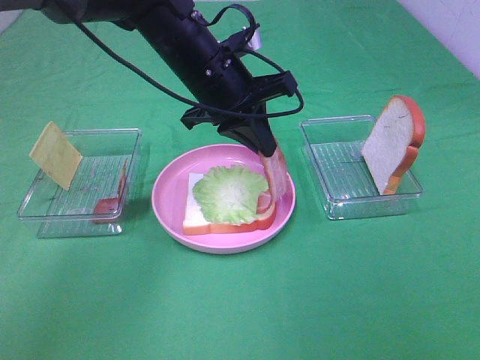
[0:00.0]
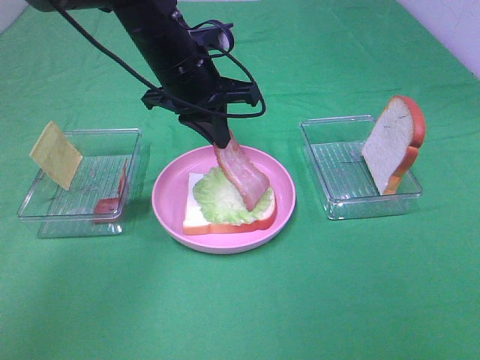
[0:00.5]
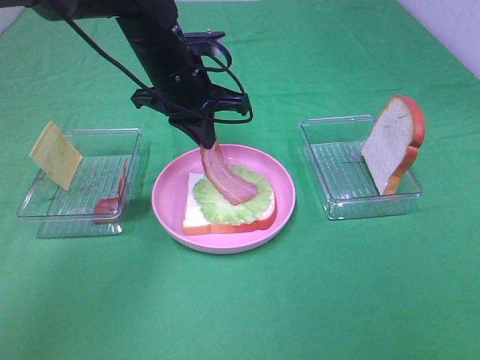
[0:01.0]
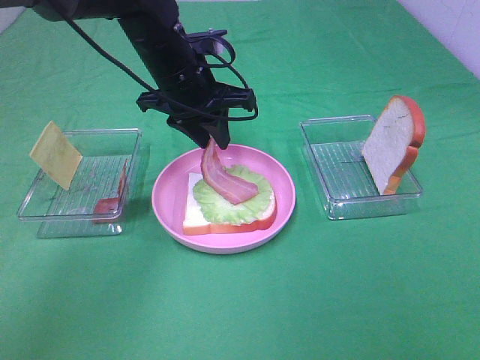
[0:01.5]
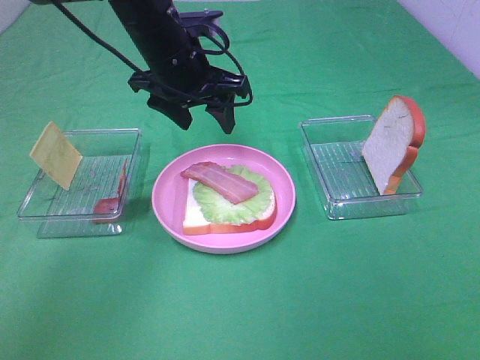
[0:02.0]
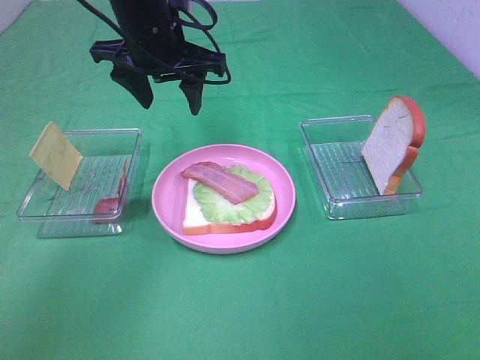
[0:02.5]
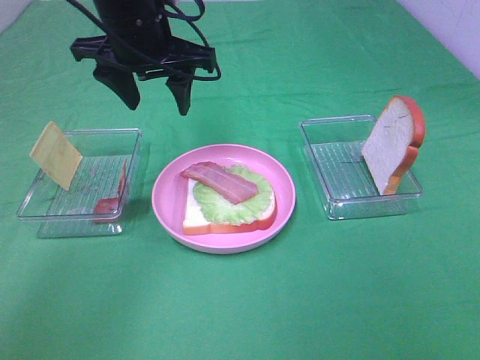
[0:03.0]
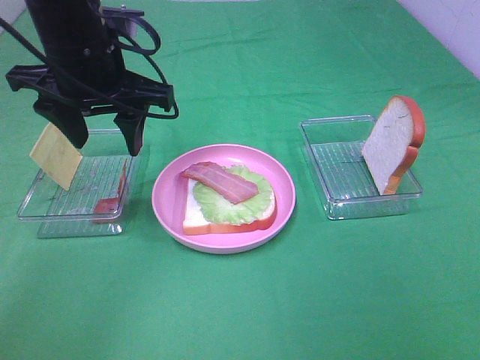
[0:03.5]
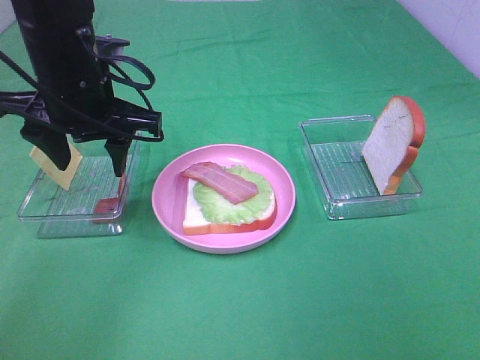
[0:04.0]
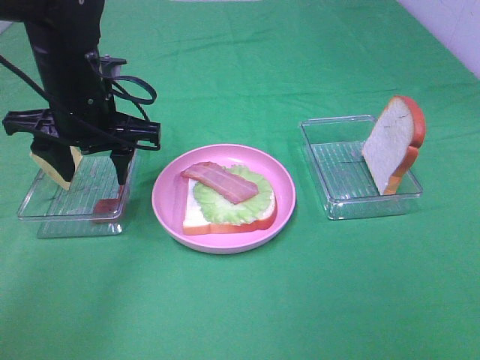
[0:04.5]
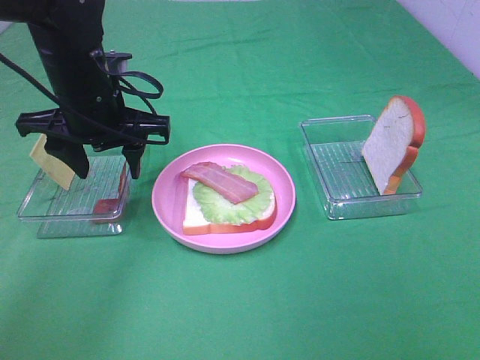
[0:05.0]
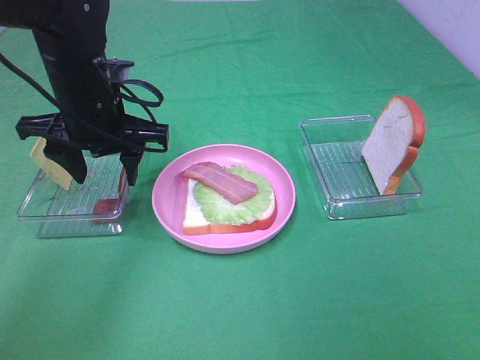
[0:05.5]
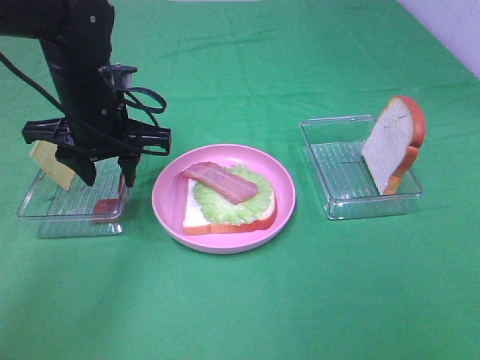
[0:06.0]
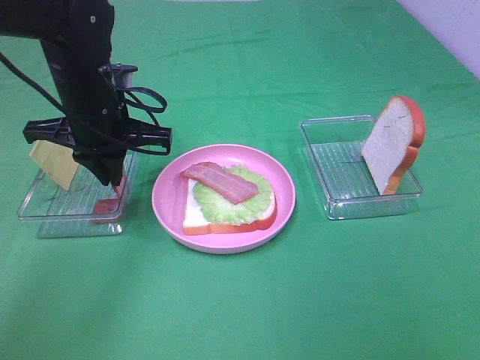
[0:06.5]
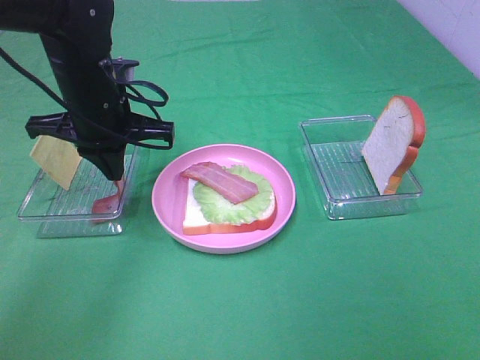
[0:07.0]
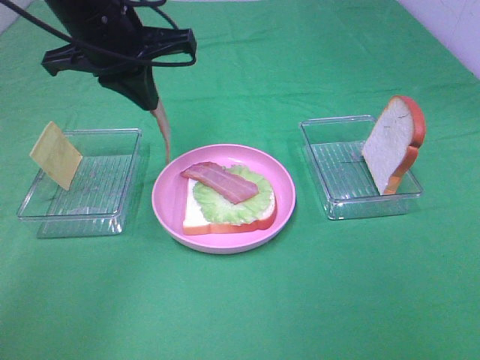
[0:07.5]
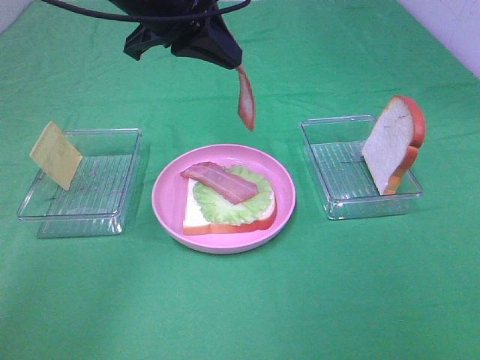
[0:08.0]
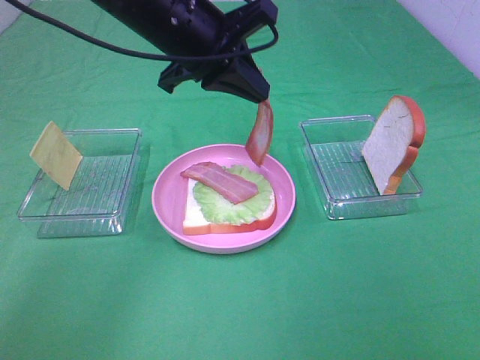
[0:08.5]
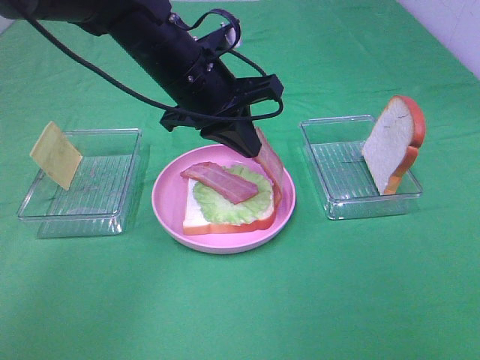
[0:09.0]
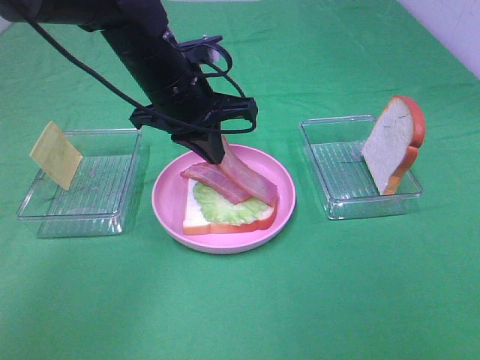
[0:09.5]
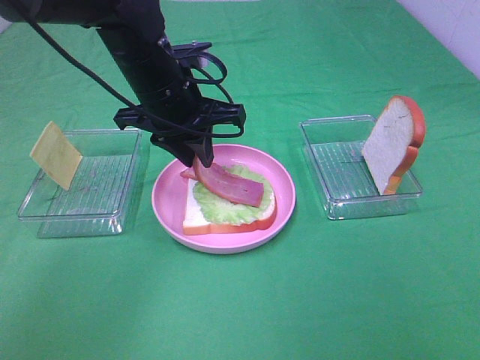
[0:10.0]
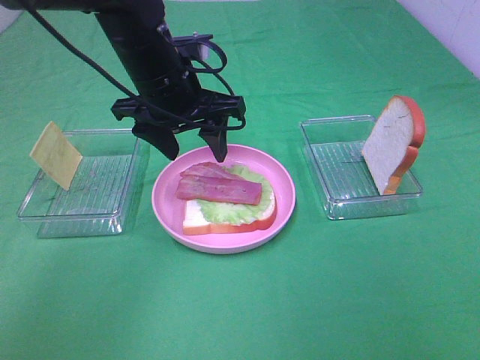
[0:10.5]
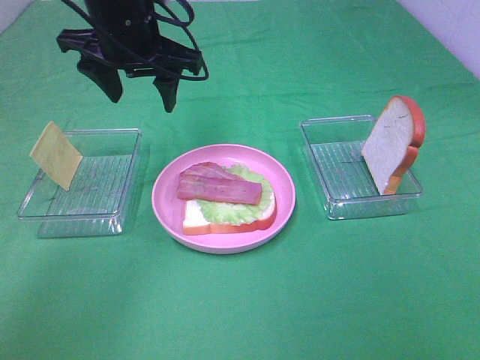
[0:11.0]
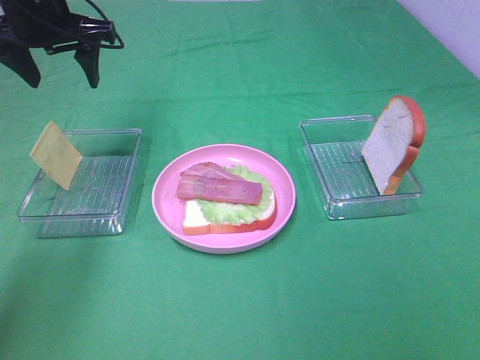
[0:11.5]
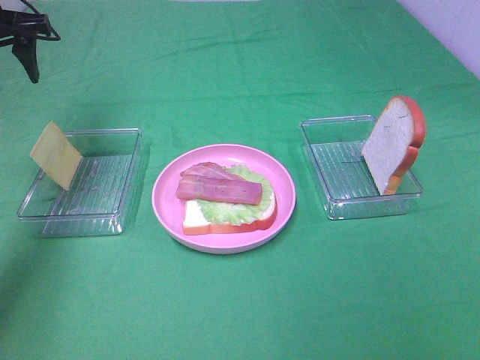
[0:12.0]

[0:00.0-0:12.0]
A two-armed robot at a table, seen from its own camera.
Task of the whole recording: Make sandwiches.
Step, 0:02.0 to 0:07.0: Left hand:grab the bacon.
Step, 0:07.5 to 0:10.0: Left hand:place bacon on bacon.
0:00.0 to 0:02.0: The left gripper opens up.
0:02.0 to 0:04.0: The left gripper goes roughly 10 cm backward and to the left.
0:04.0 to 0:06.0: The left gripper moves about 5 cm.
0:06.0 to 0:08.0: The left gripper goes some 15 cm upward and to the right, and closes.
0:08.0 to 0:10.0: The left gripper heads downward, covering about 10 cm, and opens.
0:10.0 to 0:12.0: The left gripper goes some 25 cm to the left, and opens its fingers.

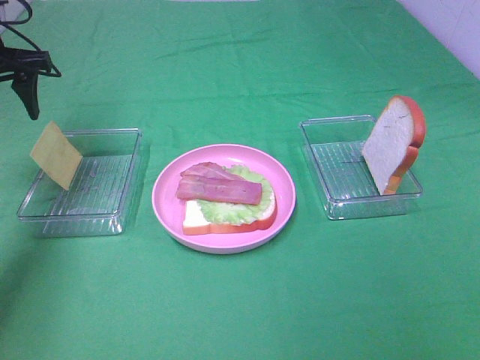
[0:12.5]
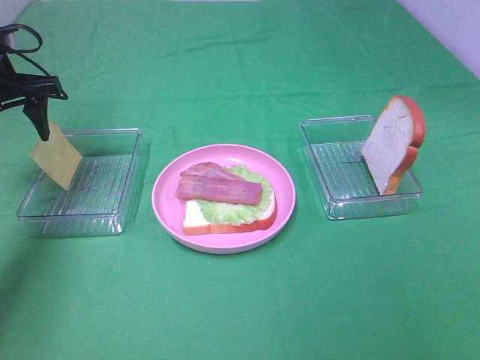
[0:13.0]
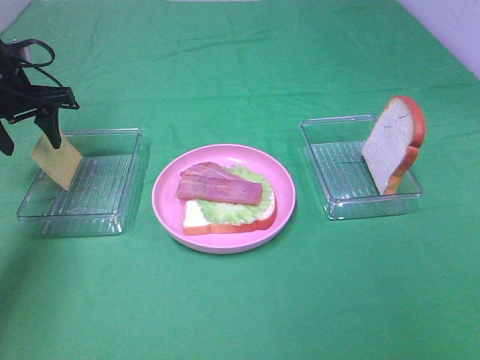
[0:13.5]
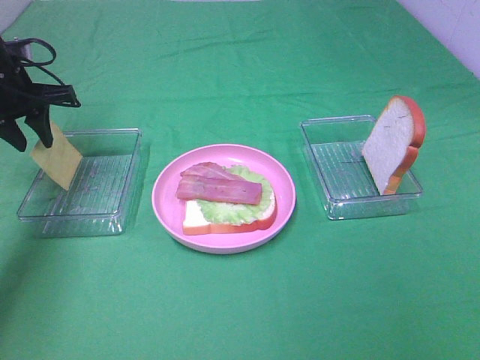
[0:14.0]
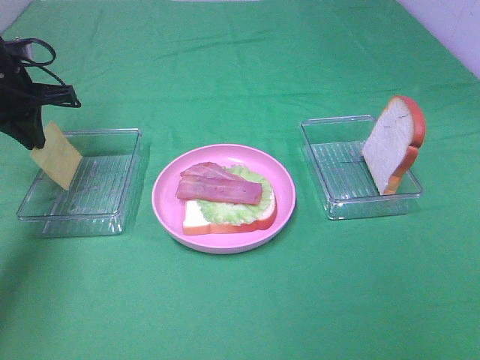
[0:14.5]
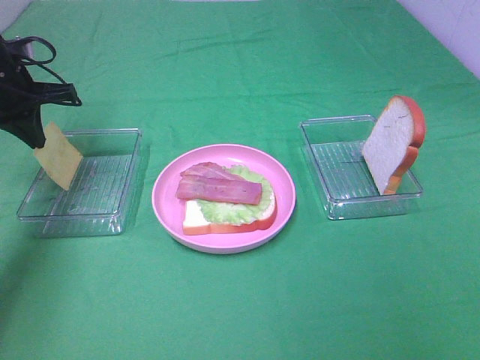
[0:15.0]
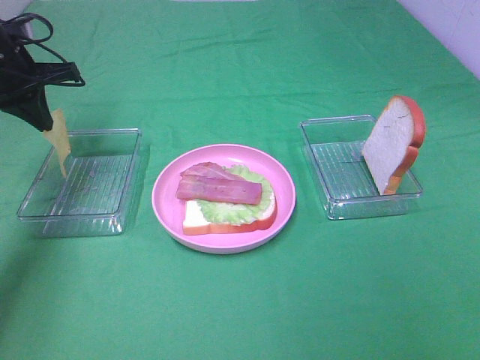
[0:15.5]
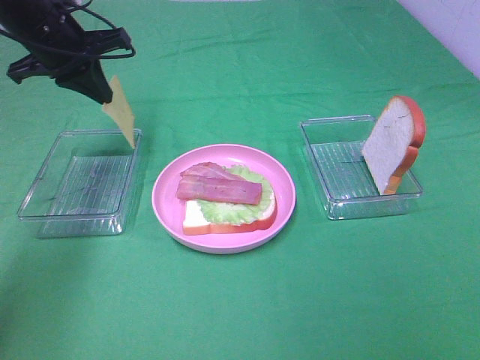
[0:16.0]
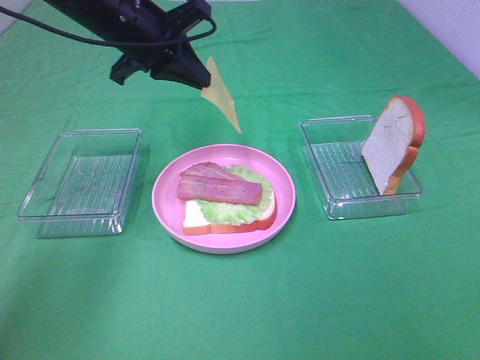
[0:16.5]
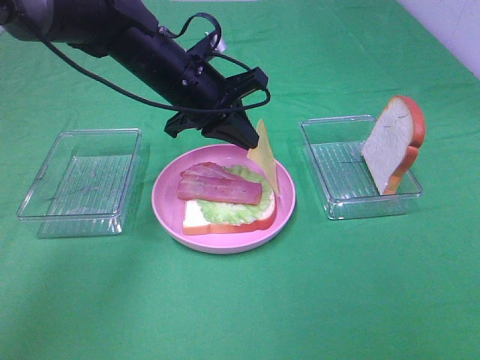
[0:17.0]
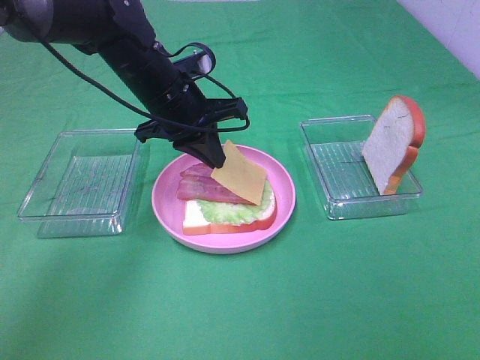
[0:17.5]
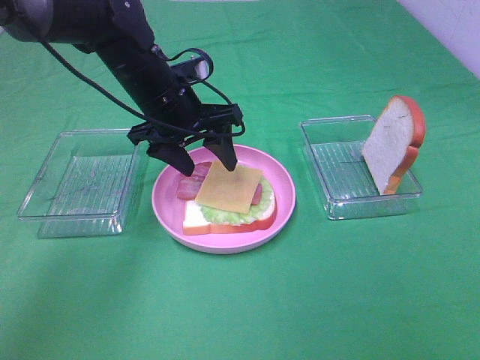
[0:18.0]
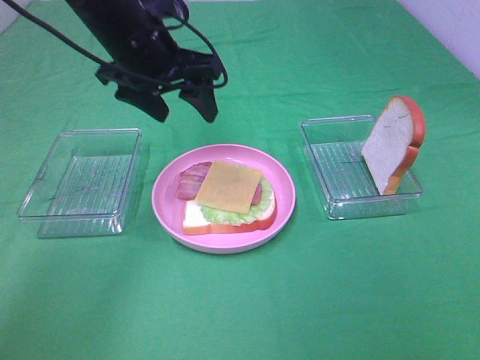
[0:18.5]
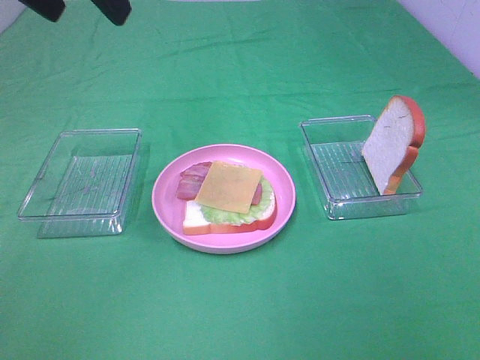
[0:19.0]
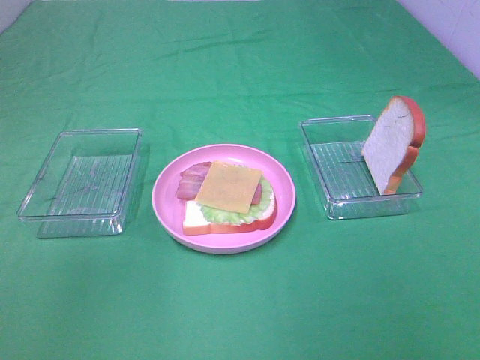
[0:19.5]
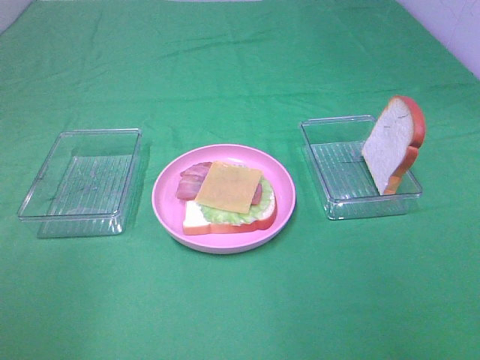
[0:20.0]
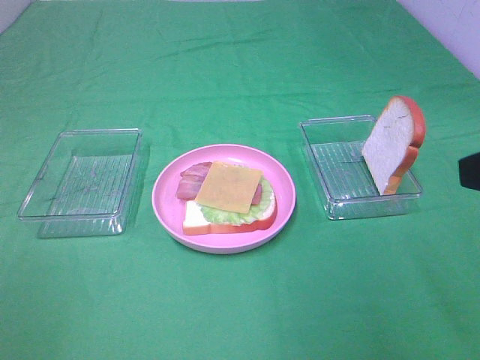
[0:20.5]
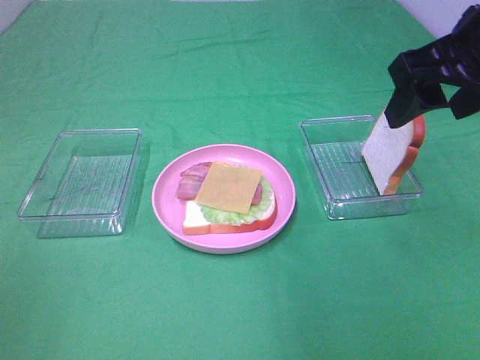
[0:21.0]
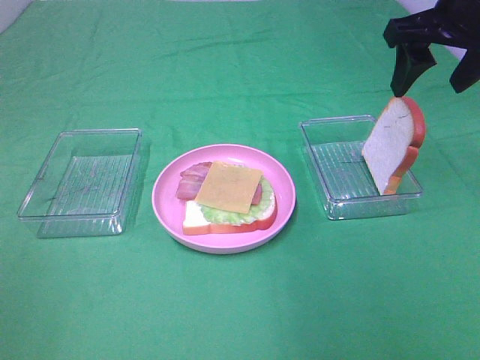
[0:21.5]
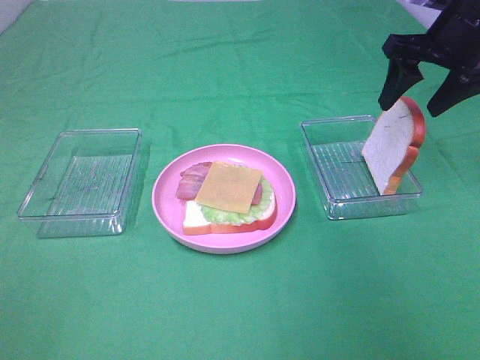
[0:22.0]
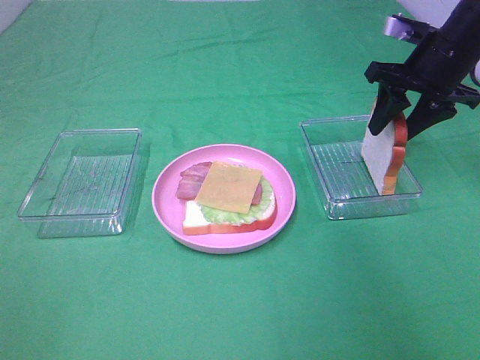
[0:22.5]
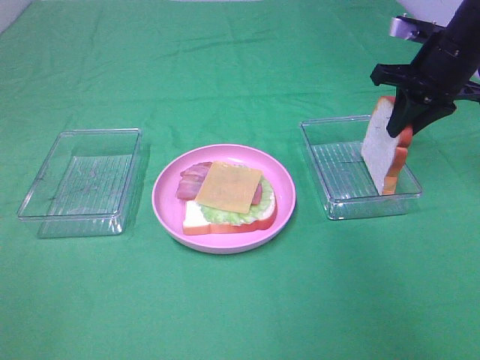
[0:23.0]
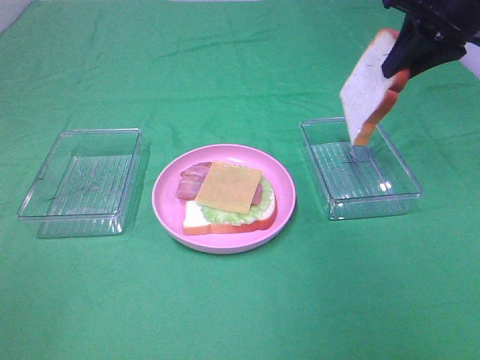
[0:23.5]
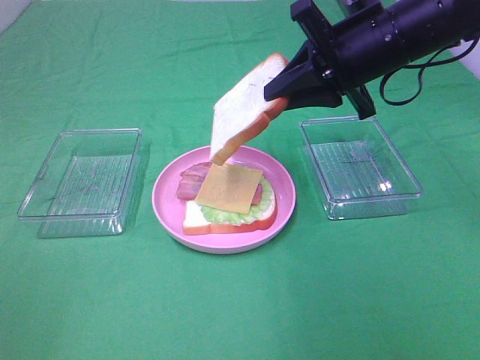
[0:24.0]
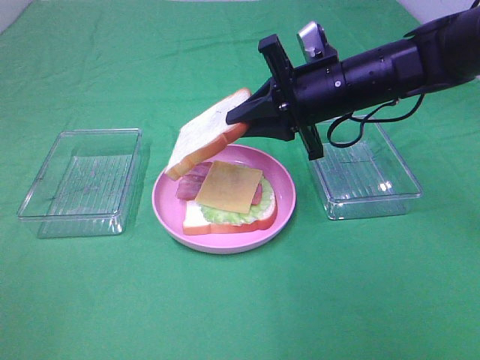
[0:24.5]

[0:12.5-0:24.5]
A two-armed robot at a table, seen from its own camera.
Task of the whole recording: Make sandwiches.
Step, 0:12.5 to 0:15.0: Left hand:grab the cheese slice.
Step, 0:15.5 to 0:18.0: Left hand:place the cheese slice on top of the bacon.
Step, 0:18.5 to 0:22.5: Right hand:grab the bread slice.
0:12.5 to 0:14.5: The left gripper travels downward by some 5 cm, and closes up.
0:14.5 to 0:16.5: The left gripper shifts roughly 20 cm to the right.
0:16.5 to 0:18.5: The left gripper moves roughly 5 cm downward and comes back, and opens.
0:18.5 to 0:20.5: The left gripper moves backward and to the left, about 40 cm. Meanwhile the right gripper moves forward, about 15 cm.
0:20.5 to 0:22.5: The right gripper is displaced forward by about 30 cm, and closes its fingers.
0:22.5 to 0:24.5: The right gripper moves to the left, roughly 15 cm, and closes.

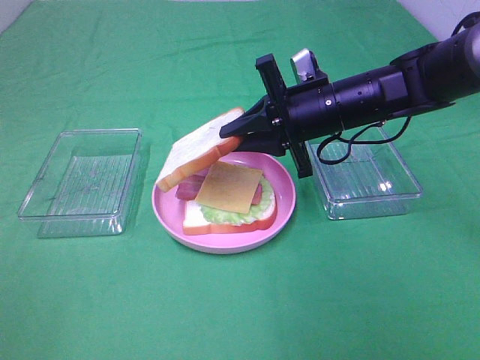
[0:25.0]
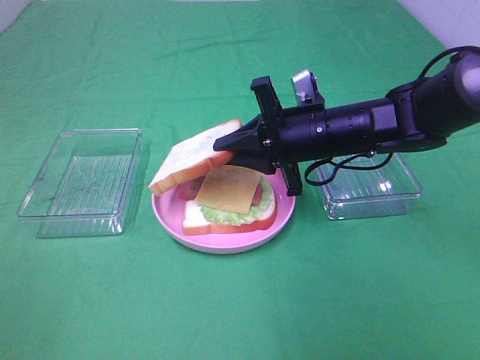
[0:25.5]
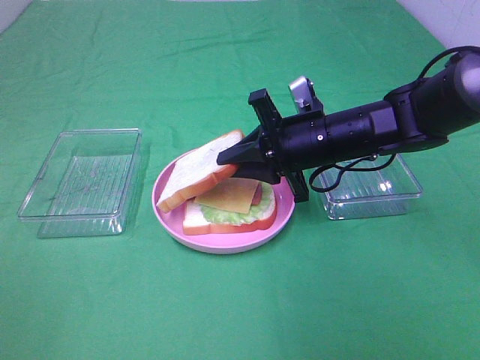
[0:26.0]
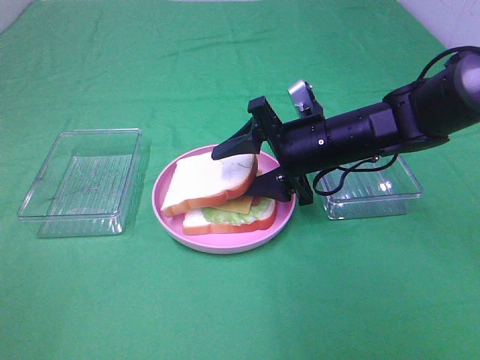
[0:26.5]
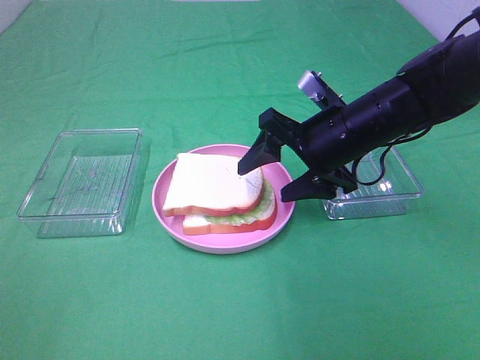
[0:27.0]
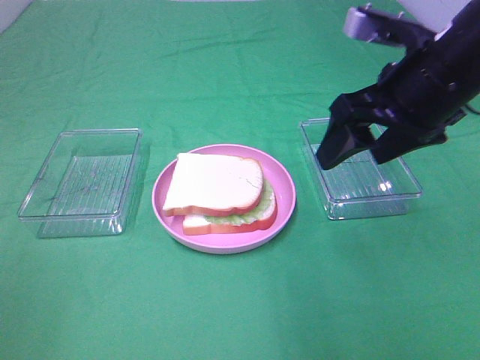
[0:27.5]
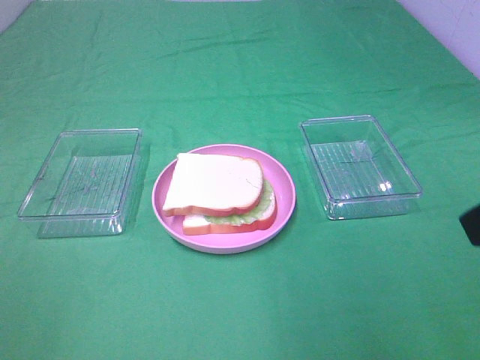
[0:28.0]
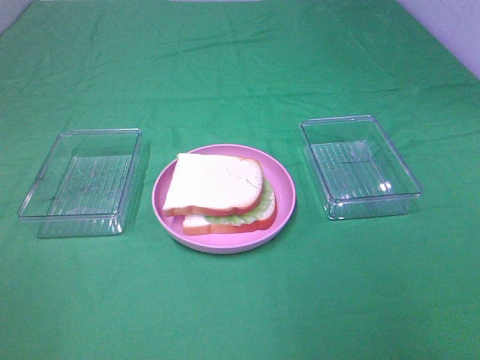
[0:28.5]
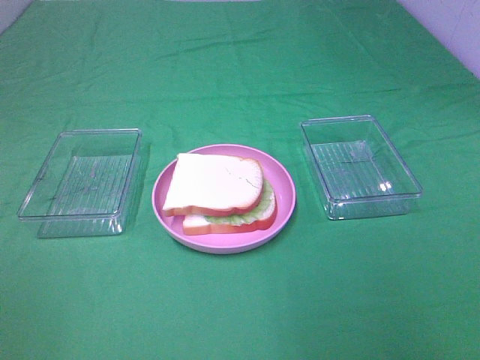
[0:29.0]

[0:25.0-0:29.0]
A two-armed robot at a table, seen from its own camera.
Task of the whole recording: Make sandwiches.
Step, 0:25.0 to 0:27.0: Right hand:place the bread slice on the cheese slice.
0:25.0 to 0:27.0: The right gripper opens its fingers.
0:27.0 to 0:29.0: The right gripper goes about 35 cm backward, upward and to the right.
